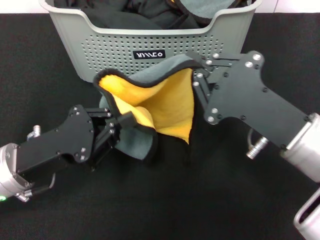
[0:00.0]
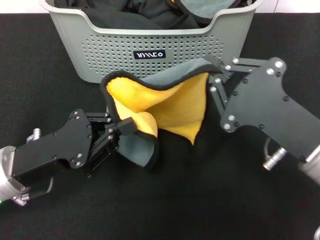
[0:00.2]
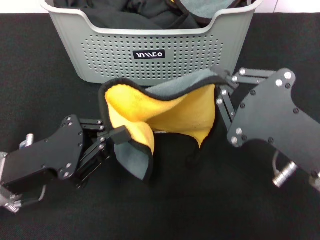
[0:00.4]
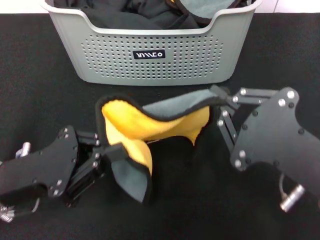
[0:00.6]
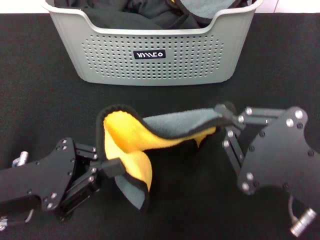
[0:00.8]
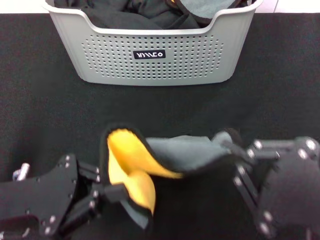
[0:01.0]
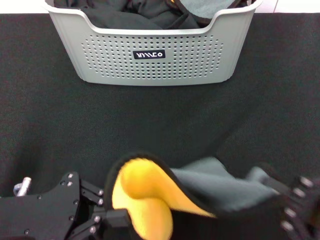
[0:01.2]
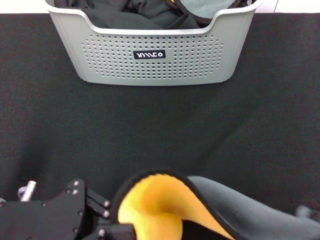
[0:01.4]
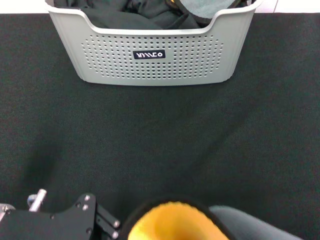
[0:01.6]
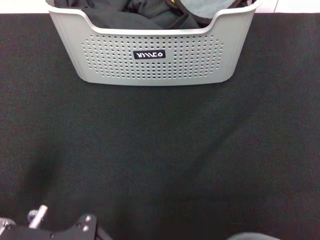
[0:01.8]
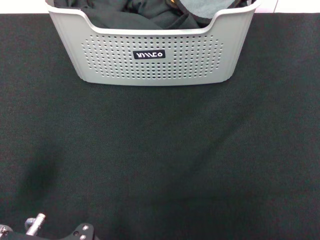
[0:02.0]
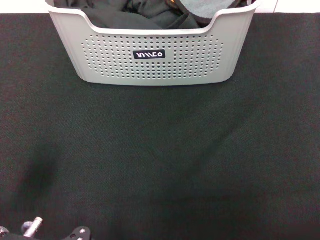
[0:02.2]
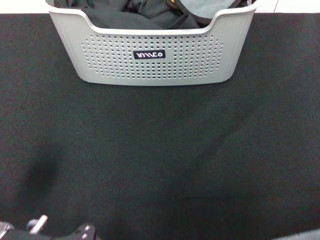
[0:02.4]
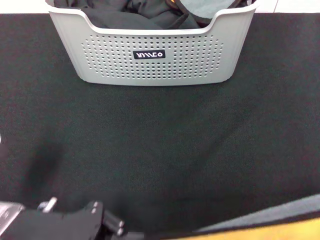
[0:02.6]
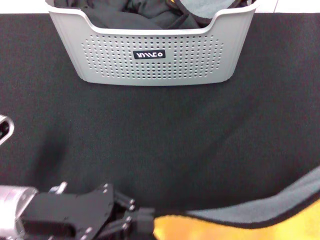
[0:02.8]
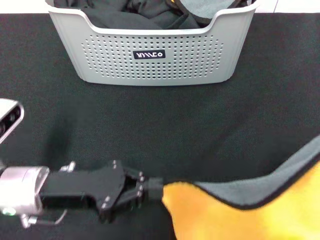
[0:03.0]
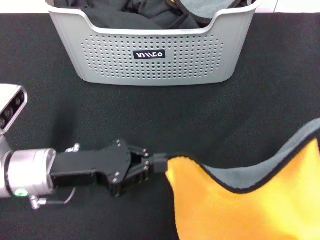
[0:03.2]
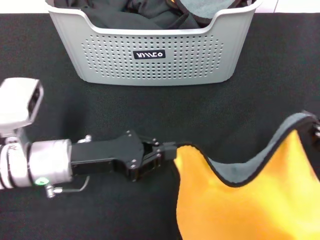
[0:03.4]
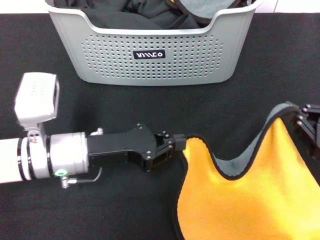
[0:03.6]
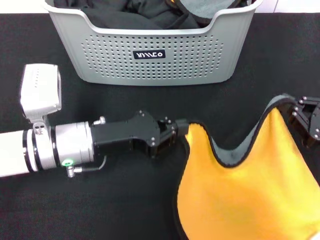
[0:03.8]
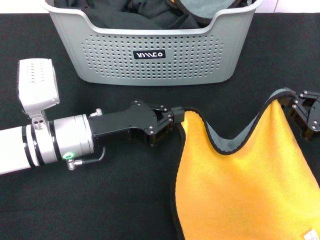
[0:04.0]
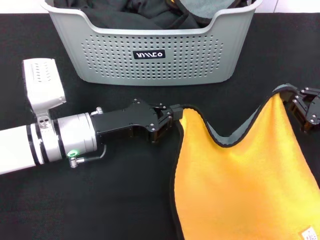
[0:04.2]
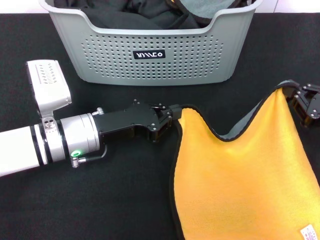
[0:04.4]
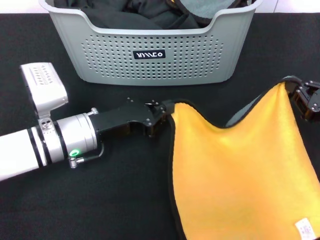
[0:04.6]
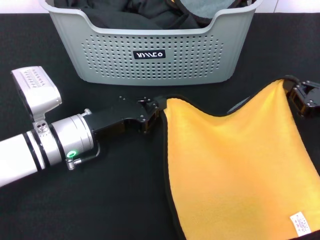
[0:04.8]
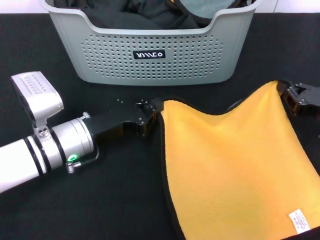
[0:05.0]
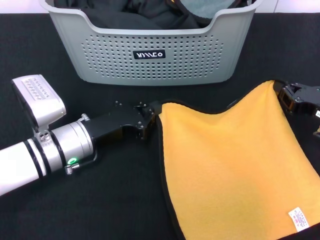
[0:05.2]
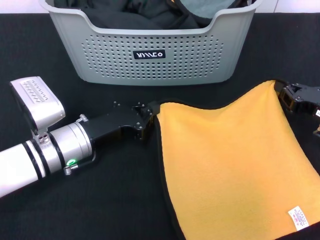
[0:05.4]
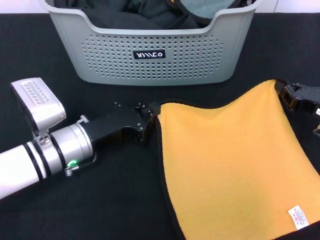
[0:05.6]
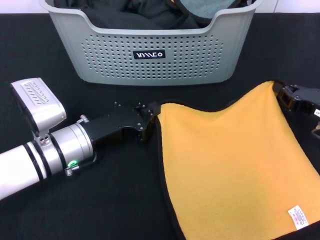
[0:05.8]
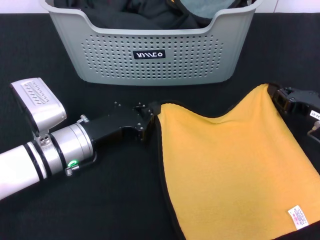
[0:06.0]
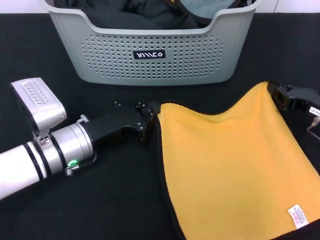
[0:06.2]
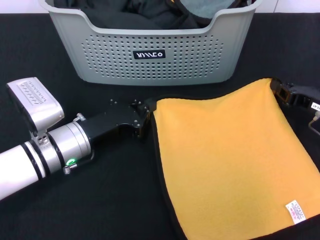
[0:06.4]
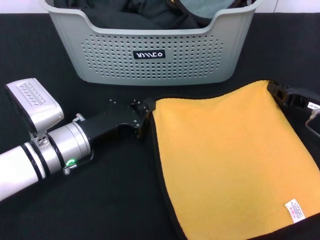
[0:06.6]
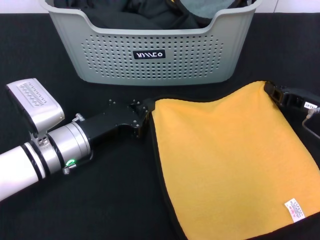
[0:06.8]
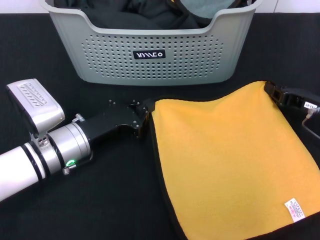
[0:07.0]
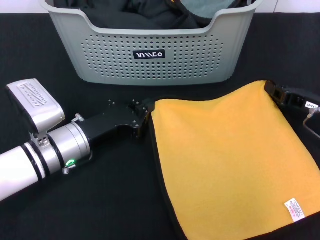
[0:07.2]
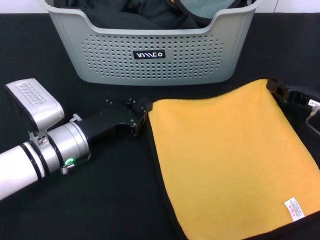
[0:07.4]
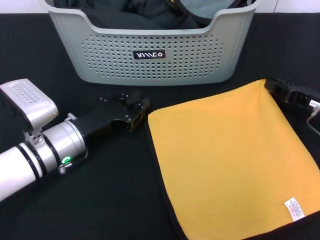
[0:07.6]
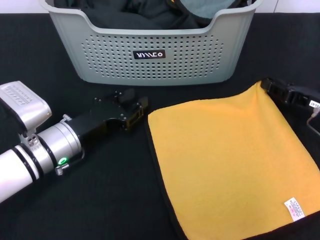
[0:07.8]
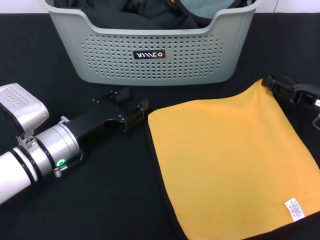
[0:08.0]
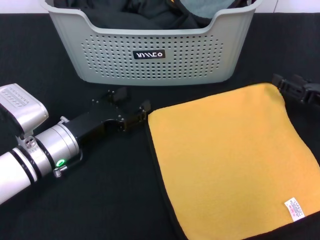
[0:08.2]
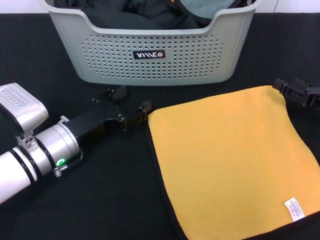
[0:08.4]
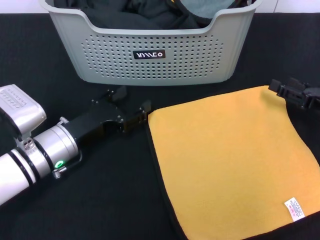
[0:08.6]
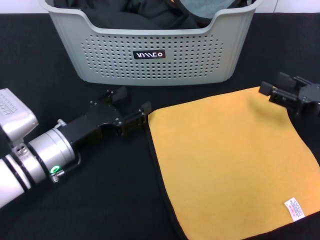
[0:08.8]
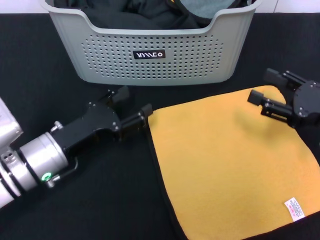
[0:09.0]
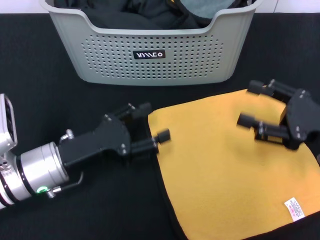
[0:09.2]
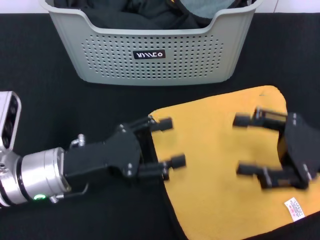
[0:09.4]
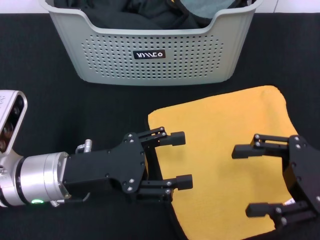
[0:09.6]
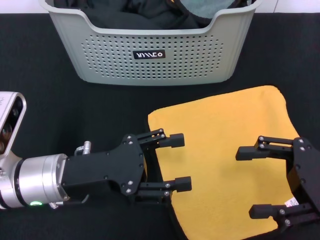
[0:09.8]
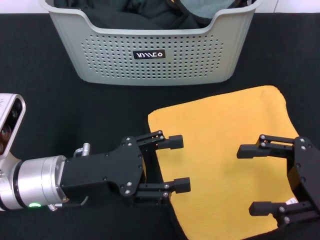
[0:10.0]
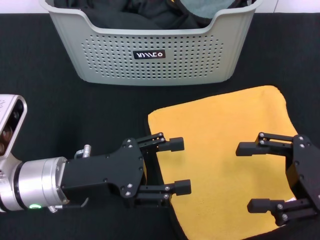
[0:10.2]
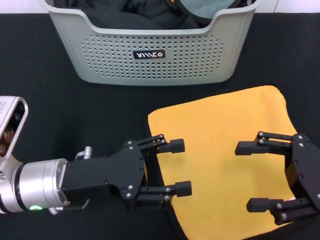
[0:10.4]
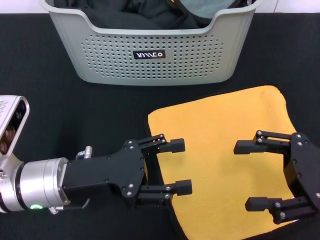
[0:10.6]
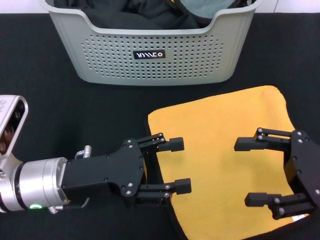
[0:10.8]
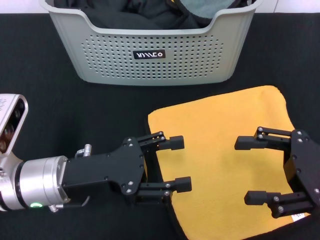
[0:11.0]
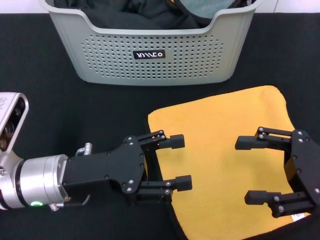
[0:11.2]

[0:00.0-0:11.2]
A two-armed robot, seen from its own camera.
Task of the whole recording: pick up the towel from the storage box and lay it flat on the black tablecloth.
Step, 0:00.0 to 0:08.2: Spread the towel flat with the right gripper.
0:00.0 to 0:01.6: The left gripper shifts by approximately 5 cm; the right gripper travels backward and to the right by about 20 cm.
0:01.6 to 0:03.2: The right gripper travels forward and downward by about 15 cm. Meanwhile the left gripper is displaced forward by approximately 5 cm.
0:03.2 to 0:04.8: The left gripper travels forward by some 5 cm. The right gripper shifts roughly 10 cm forward.
0:04.8 to 0:06.4: The grippers make only small movements.
0:06.4 to 0:08.0: The right gripper opens its fingers, while the left gripper opens its fingers.
0:08.0 to 0:09.6: The right gripper moves backward and upward, about 10 cm, and opens up. The left gripper travels upward by roughly 5 cm, and opens up.
0:09.6 to 0:11.2: The two grippers keep their place.
